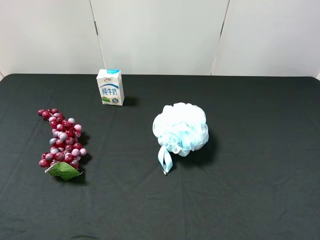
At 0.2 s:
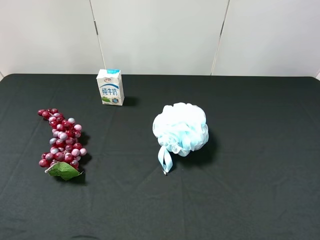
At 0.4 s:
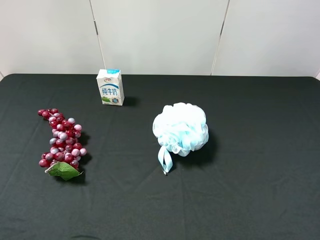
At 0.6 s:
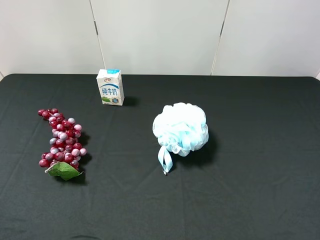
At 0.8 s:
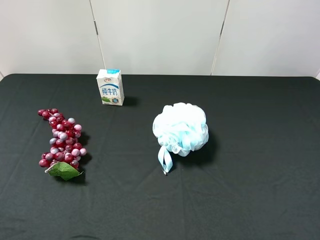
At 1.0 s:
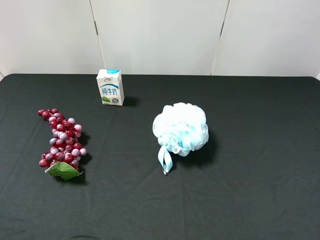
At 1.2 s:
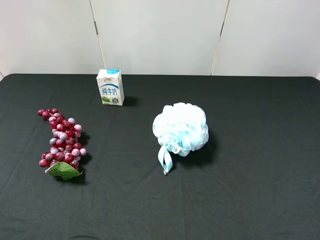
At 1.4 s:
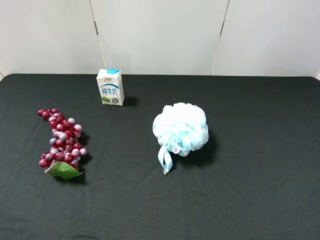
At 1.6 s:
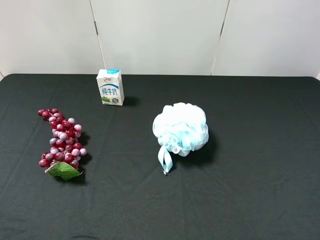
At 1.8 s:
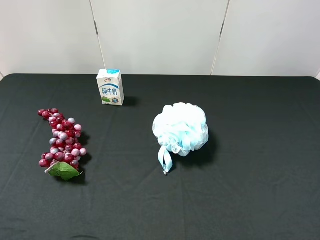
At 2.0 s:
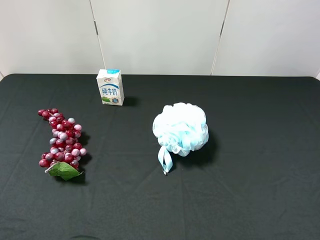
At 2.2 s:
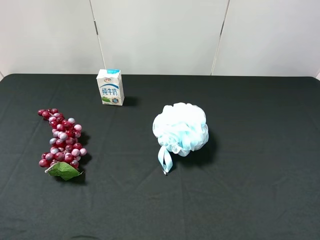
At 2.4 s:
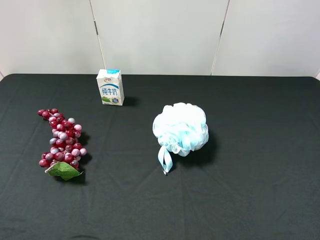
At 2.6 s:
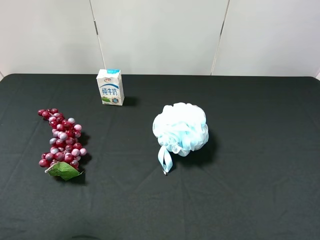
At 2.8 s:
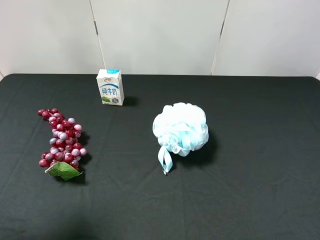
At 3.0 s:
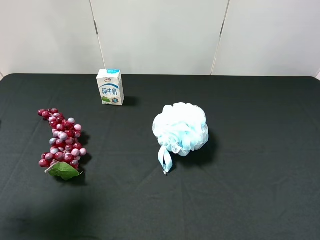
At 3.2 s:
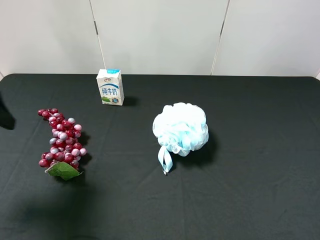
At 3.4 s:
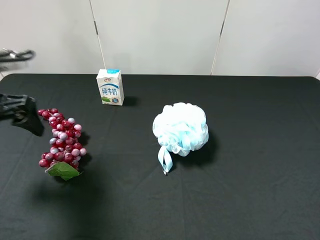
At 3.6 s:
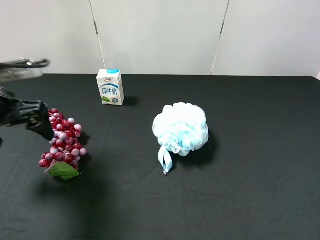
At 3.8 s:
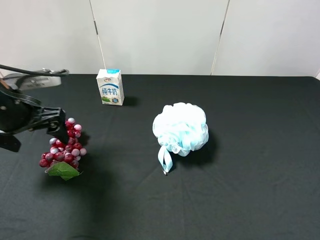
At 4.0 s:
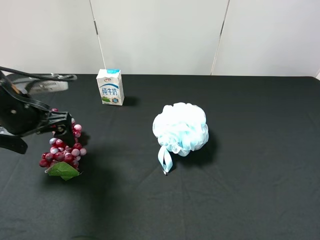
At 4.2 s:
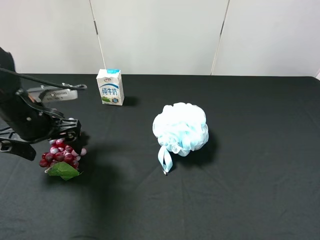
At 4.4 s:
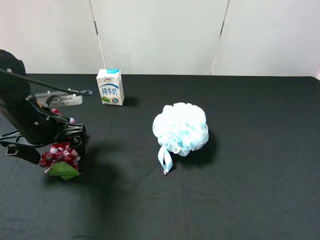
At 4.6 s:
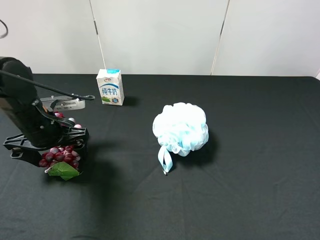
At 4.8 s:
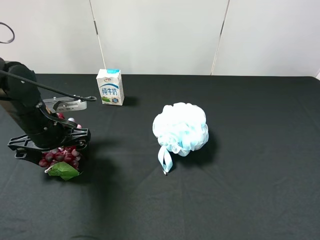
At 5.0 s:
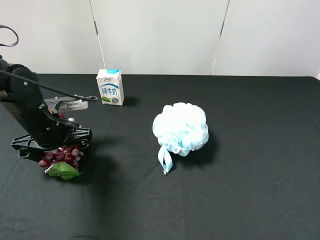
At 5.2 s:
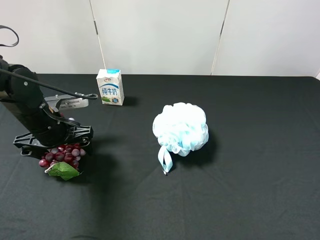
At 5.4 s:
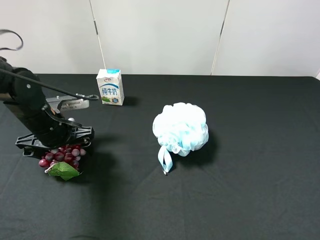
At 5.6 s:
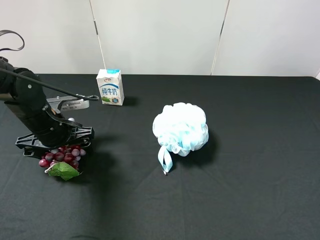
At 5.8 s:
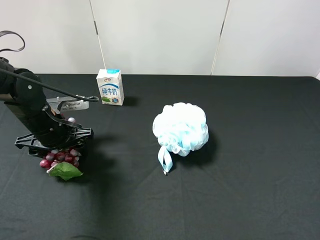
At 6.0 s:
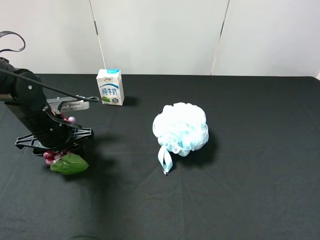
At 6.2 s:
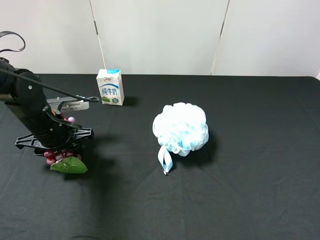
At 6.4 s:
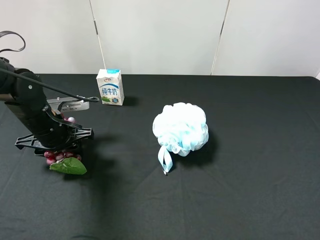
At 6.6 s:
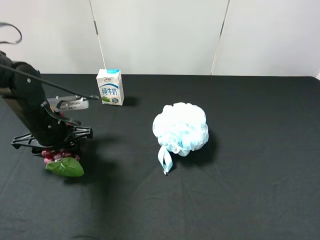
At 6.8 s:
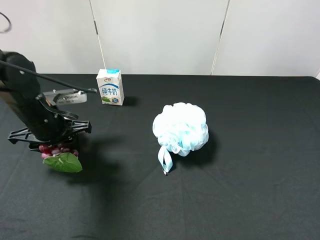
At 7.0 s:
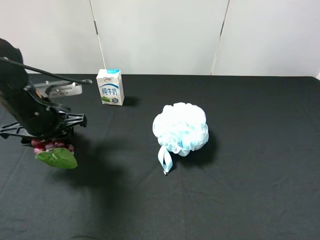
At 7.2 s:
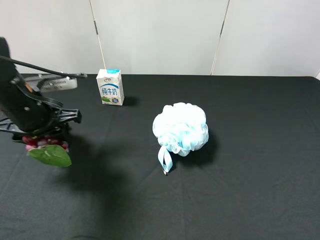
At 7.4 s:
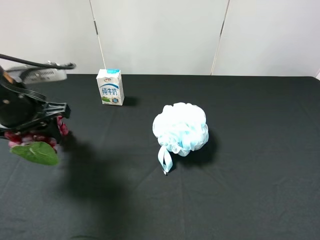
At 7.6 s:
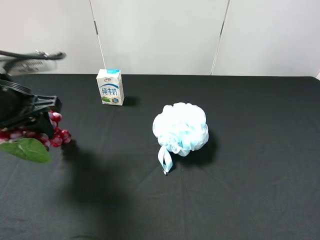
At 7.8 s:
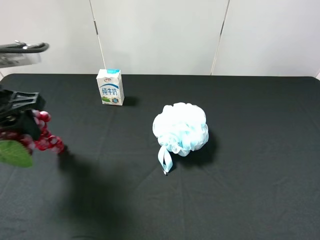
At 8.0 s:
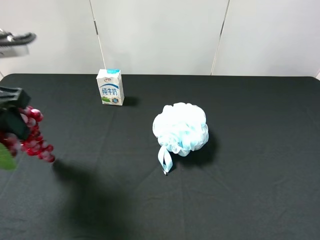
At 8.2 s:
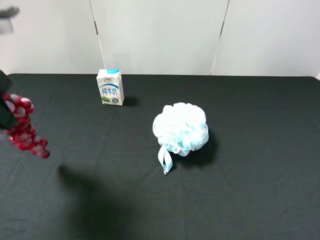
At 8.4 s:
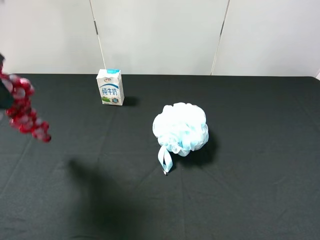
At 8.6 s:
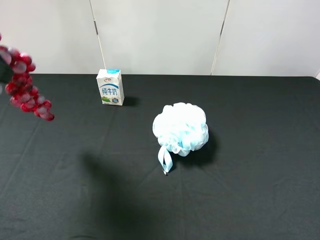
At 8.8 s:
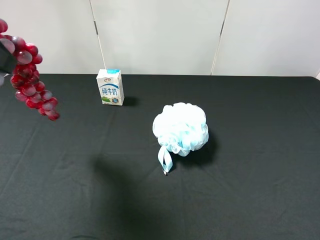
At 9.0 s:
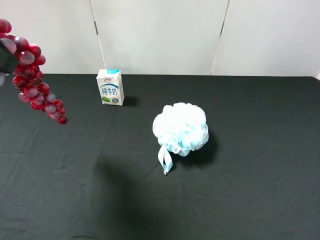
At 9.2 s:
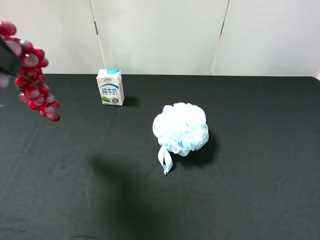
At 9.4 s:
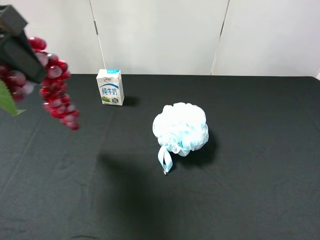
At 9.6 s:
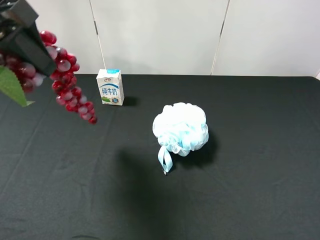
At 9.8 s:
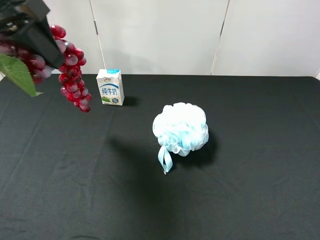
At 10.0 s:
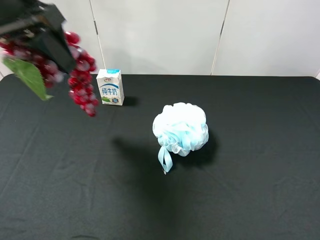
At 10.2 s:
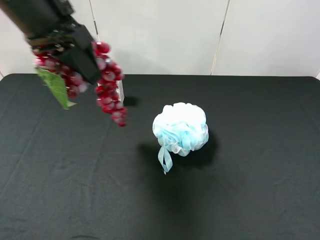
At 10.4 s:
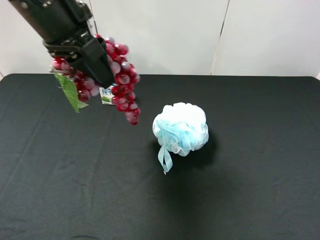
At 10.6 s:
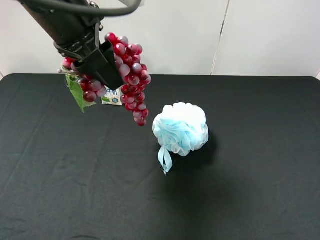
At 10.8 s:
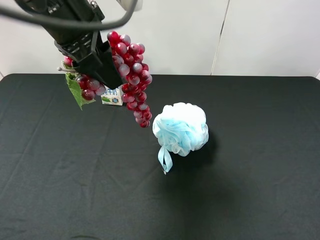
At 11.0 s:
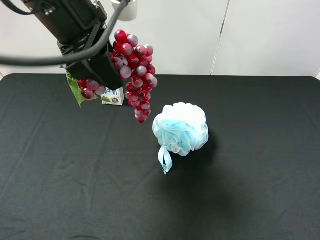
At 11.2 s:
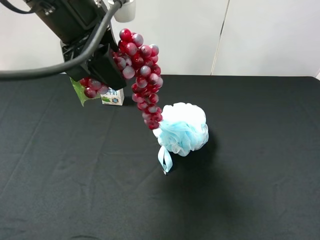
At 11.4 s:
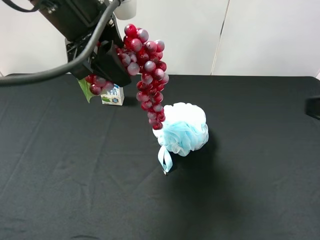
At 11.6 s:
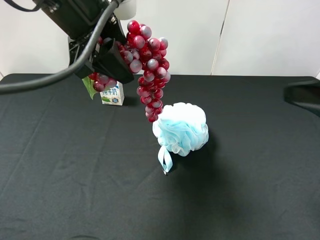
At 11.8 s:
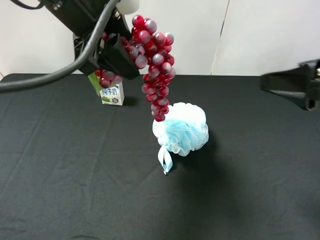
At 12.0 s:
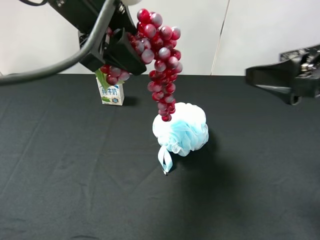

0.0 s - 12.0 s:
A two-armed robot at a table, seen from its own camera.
Task of the whole recording: use the left gripper to pick up the item and transfer it from the left gripper to the right gripper.
0.0 s - 1.6 s: Neither gripper changes place.
1.6 s - 3.0 s: The left gripper moves forward, roughly 15 cm.
3.0 s - 4.4 s: The left gripper heads downward, to the right and forward, covering some 20 cm.
4.4 s - 6.0 s: The left gripper closes its fingers.
6.0 s - 7.6 s: The left gripper is displaced upward by some 15 cm.
7.6 s - 9.0 s: The left gripper is displaced upward by about 15 cm.
9.0 s - 10.4 s: The left gripper is displaced to the right and forward by approximately 15 cm.
10.4 s - 12.0 s: The right gripper travels forward by approximately 15 cm.

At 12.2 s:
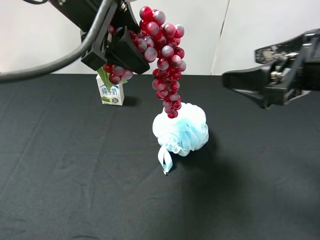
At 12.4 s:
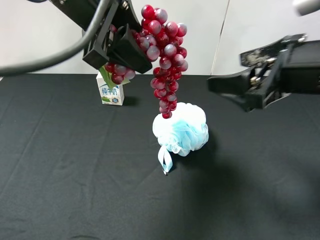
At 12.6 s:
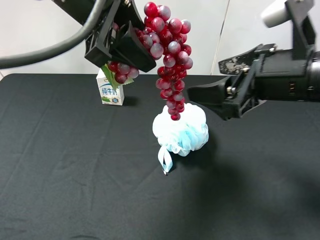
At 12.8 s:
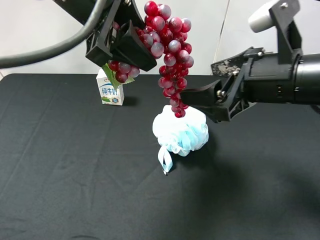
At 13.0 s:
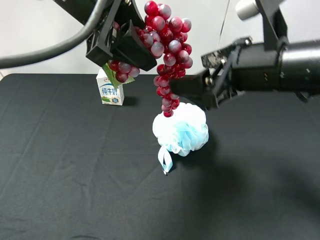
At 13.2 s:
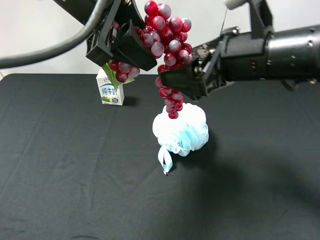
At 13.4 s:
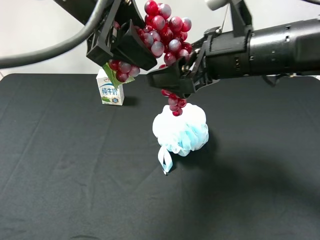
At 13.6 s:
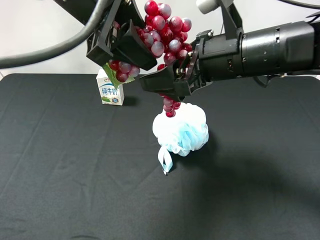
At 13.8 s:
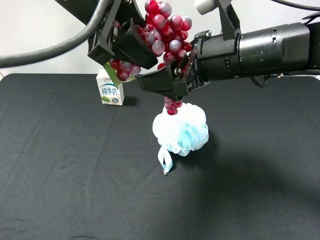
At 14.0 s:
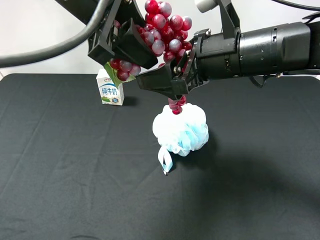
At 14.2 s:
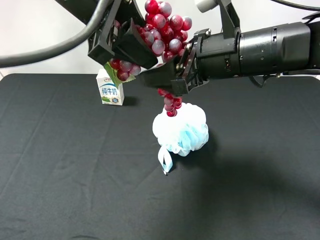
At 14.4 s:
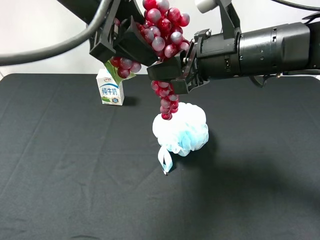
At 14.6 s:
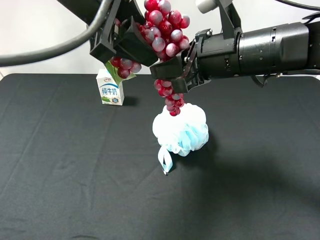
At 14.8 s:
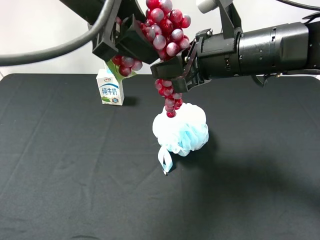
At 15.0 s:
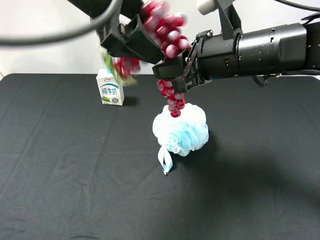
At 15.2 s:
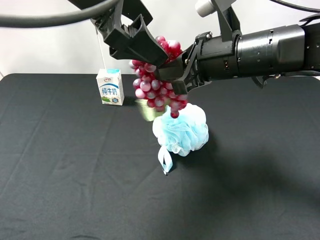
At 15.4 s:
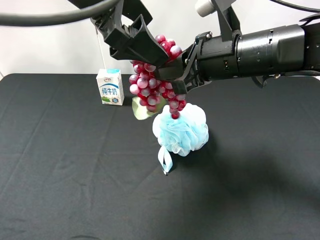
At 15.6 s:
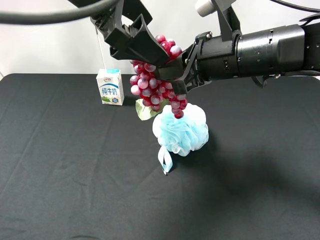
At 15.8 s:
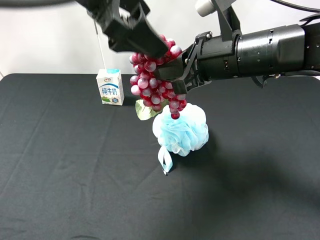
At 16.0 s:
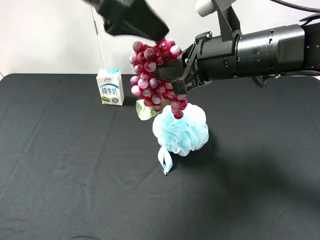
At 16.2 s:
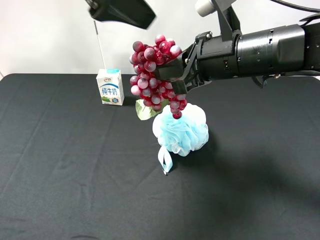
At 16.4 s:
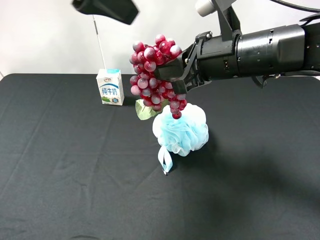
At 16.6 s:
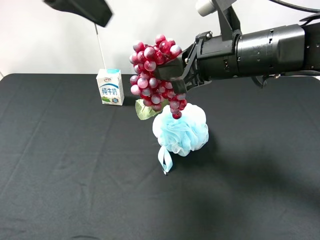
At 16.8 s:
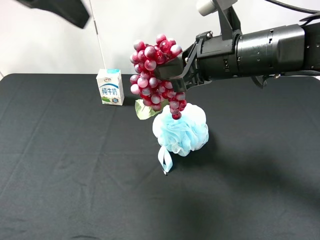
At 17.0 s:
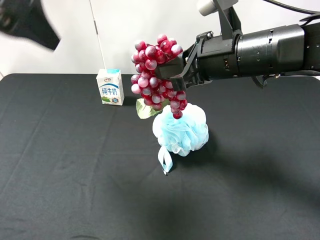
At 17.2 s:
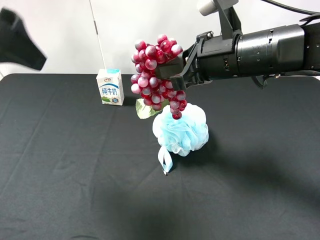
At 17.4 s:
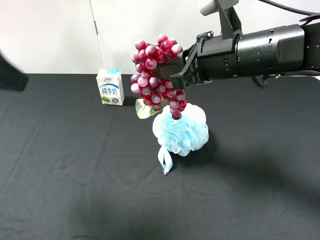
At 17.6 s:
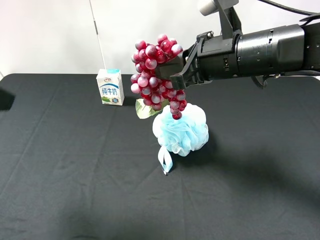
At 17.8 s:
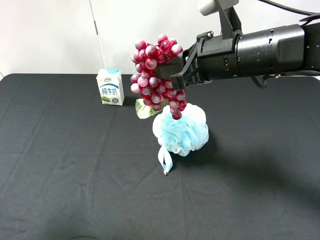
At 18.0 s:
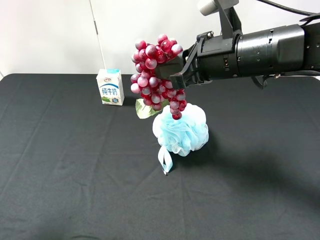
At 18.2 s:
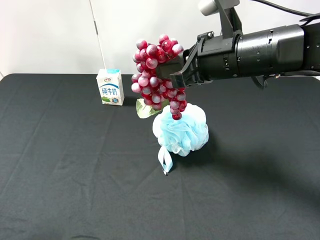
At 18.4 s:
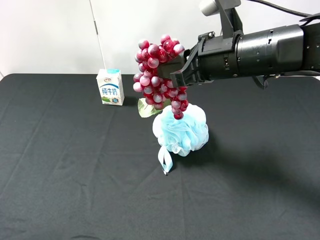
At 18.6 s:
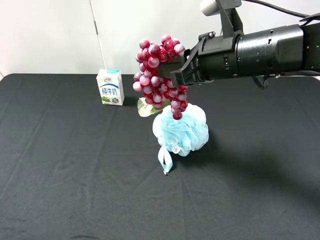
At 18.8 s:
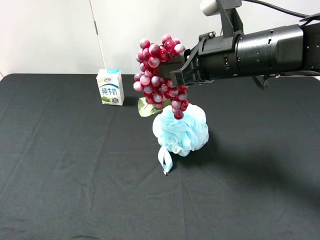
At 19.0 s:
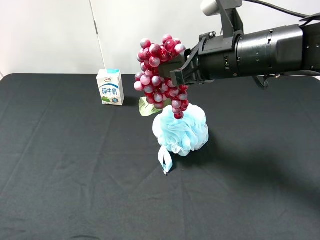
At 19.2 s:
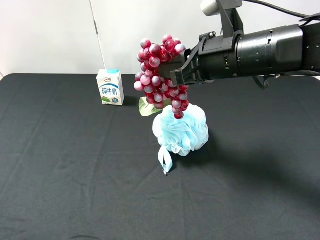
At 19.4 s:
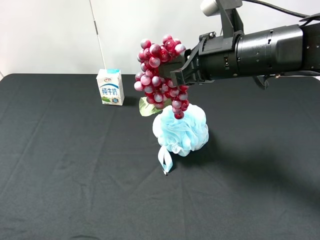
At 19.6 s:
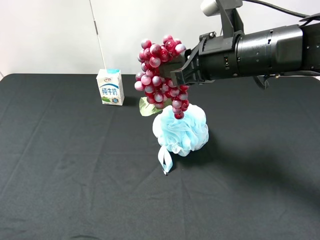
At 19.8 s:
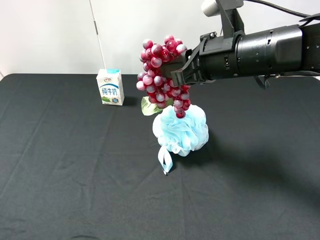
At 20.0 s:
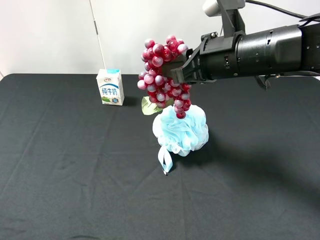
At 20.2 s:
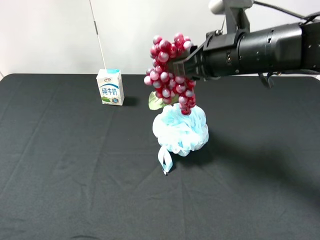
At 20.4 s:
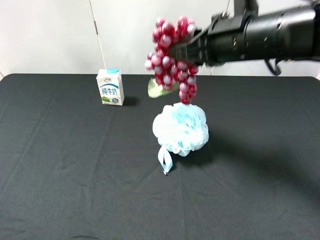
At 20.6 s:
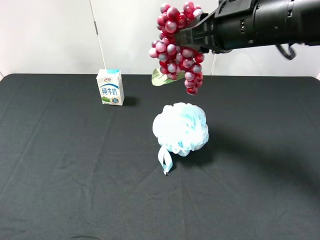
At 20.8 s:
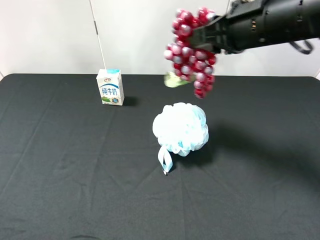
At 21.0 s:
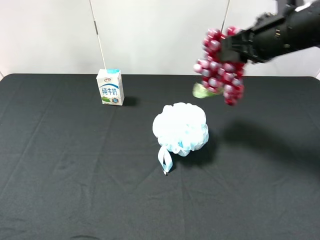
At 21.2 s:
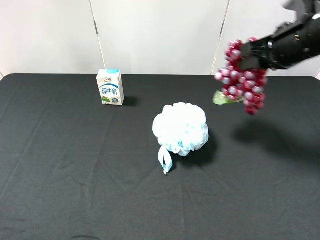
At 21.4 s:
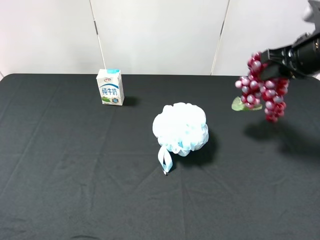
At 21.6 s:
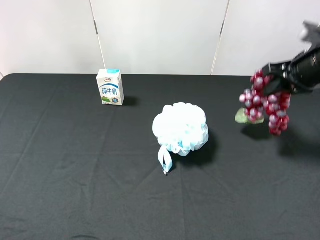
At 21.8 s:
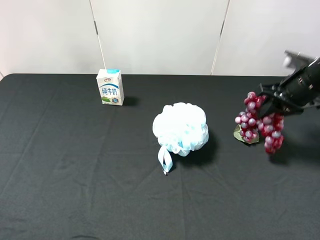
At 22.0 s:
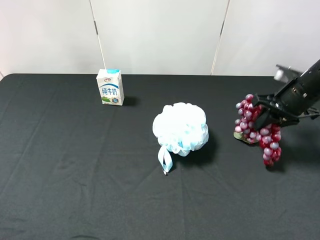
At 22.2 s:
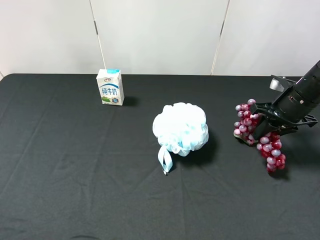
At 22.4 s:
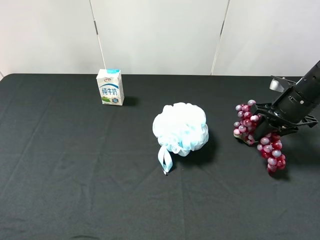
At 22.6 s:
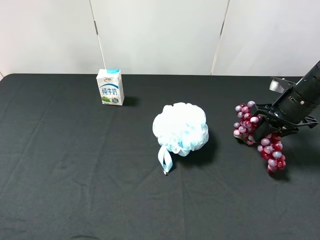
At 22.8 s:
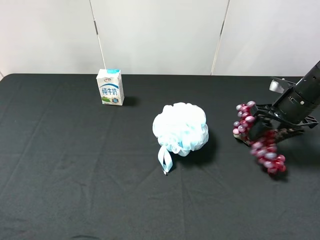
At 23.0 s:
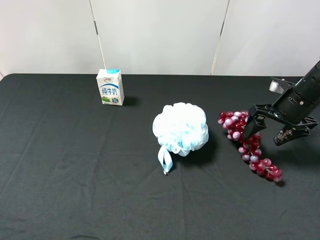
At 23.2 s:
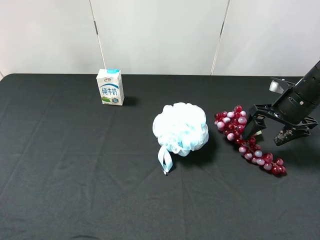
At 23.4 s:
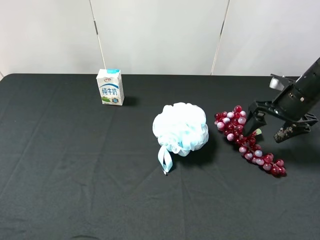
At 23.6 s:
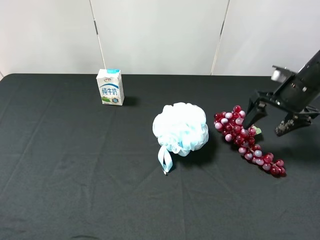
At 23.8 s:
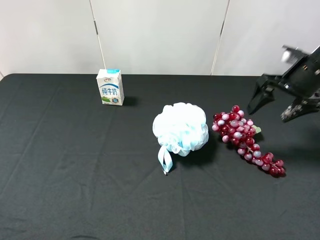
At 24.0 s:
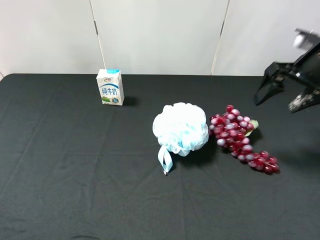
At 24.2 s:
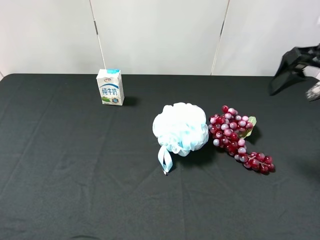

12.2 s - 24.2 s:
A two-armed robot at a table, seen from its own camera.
Task of the whole recording: use the left gripper to pick up the item and transfer it from the left gripper to the right gripper.
12.2 s - 13.8 s: The right gripper is displaced to the left and forward by approximately 10 cm.
13.8 s - 15.2 s: The left gripper opens its fingers. Meanwhile the right gripper closes.
15.2 s - 16.6 s: The left gripper shifts some 10 cm to the left and upward.
16.6 s - 18.2 s: The left gripper is displaced backward, to the left and downward by roughly 25 cm.
19.8 s - 21.2 s: The right gripper goes about 10 cm to the right.
21.2 s - 22.6 s: The right gripper goes about 10 cm downward.
22.6 s - 24.2 s: The right gripper goes some 15 cm upward, and opens up.
